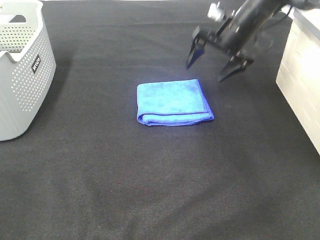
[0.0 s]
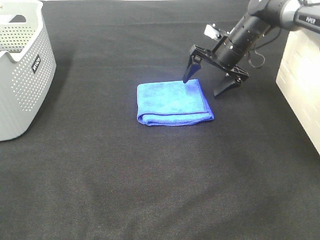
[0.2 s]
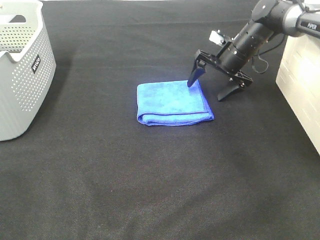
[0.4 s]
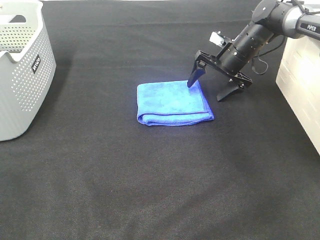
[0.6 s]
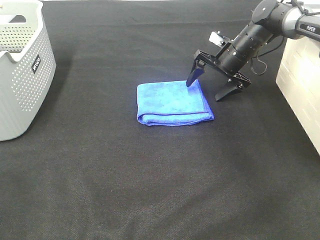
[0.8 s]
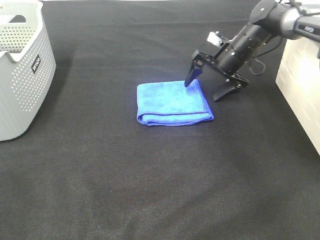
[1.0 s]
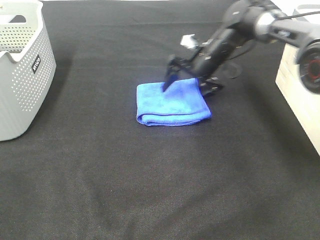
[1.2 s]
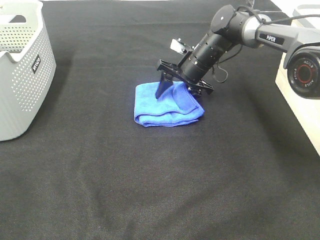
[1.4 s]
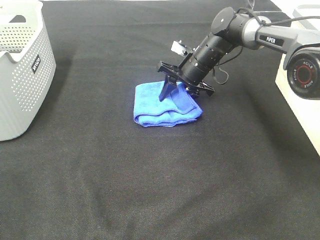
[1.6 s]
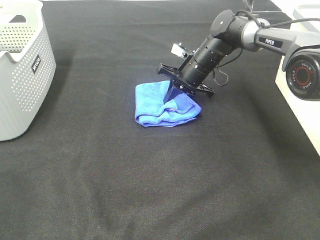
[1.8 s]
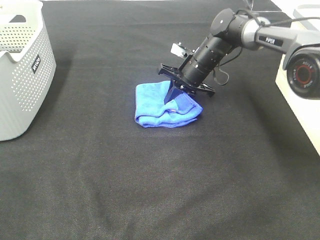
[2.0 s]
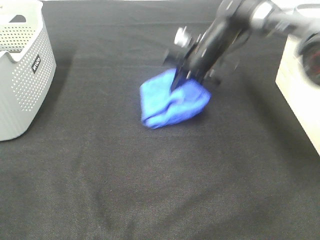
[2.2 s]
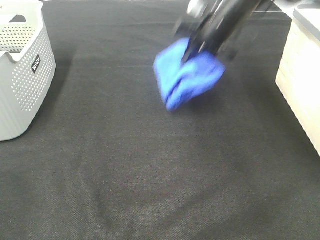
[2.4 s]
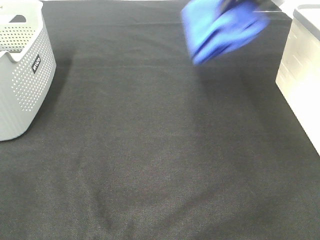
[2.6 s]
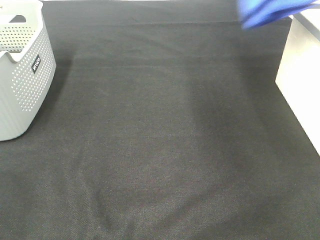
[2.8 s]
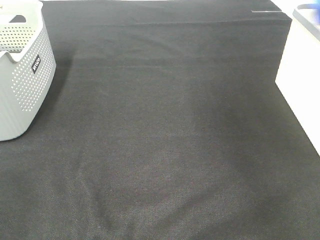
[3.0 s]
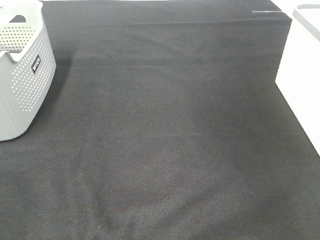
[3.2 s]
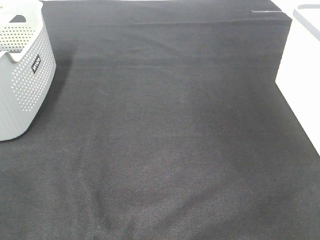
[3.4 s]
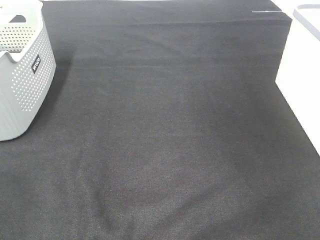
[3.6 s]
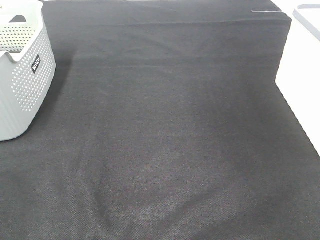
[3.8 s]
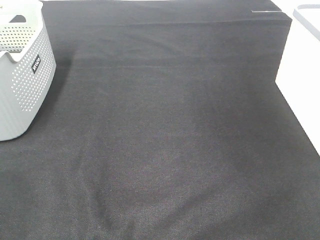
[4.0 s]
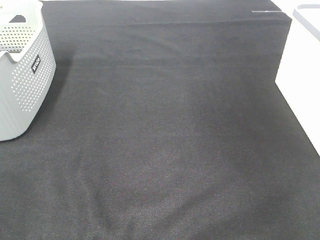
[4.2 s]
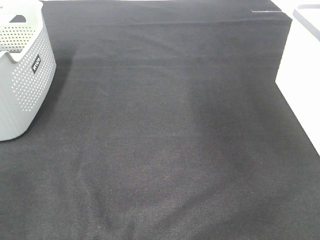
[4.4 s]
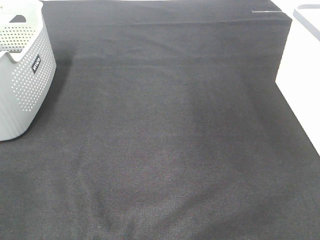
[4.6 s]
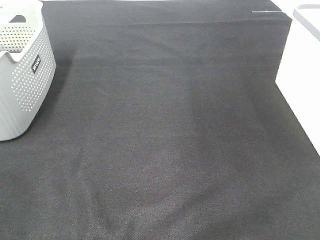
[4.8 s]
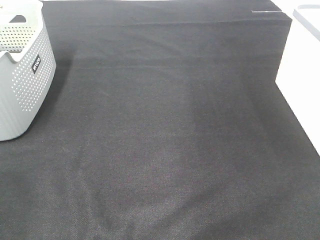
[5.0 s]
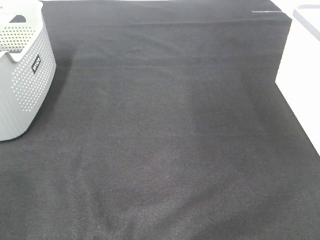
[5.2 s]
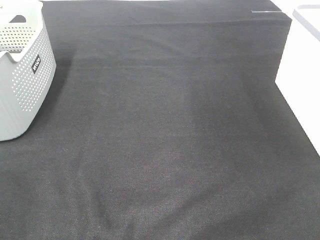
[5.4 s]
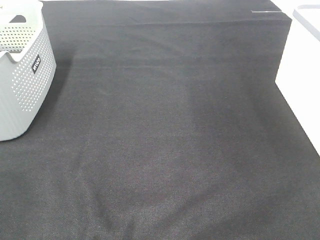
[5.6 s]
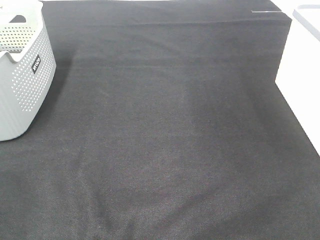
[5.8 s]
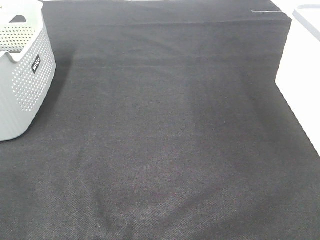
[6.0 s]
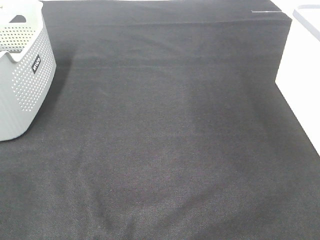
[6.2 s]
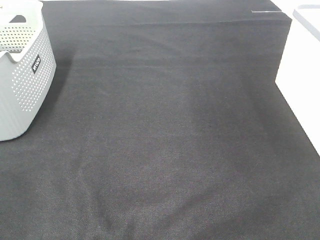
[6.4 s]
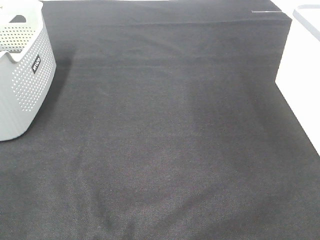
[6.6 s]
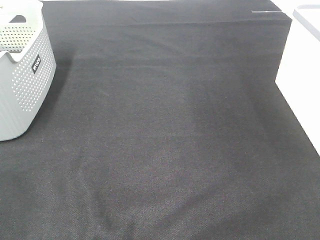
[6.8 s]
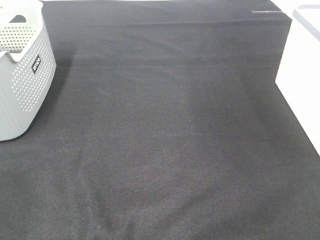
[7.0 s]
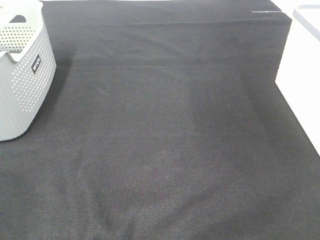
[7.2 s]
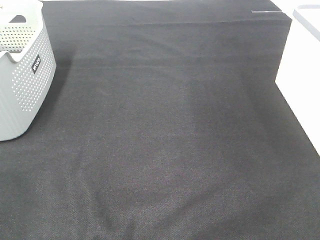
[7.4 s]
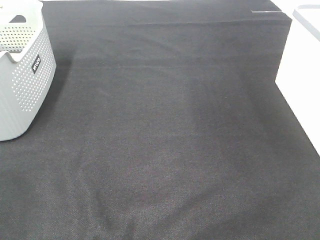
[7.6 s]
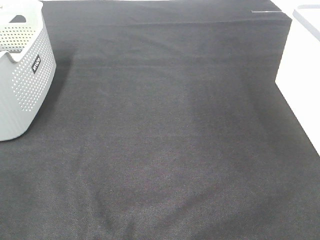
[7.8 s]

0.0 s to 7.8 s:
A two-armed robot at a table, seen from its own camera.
Step, 2.0 to 4.0 s: Right hand: place the blue towel in right basket.
0.0 to 1.6 s: The right gripper is displaced downward and to the left by approximately 10 cm, and closes.
1.6 to 3.2 s: The right gripper moves to the right and upward, roughly 40 cm.
6.2 to 7.8 s: Both grippers stay about where they are.

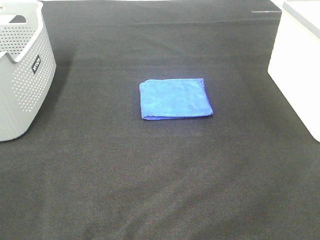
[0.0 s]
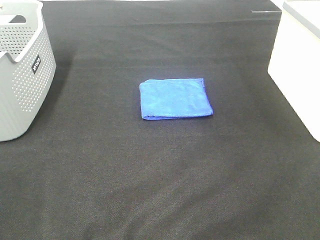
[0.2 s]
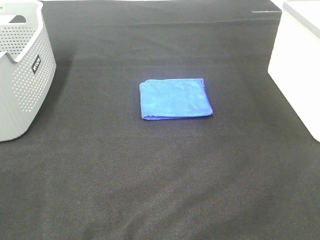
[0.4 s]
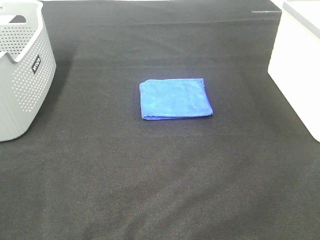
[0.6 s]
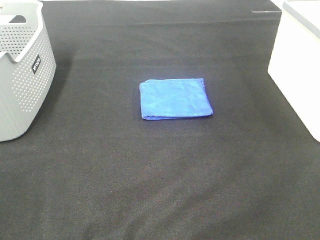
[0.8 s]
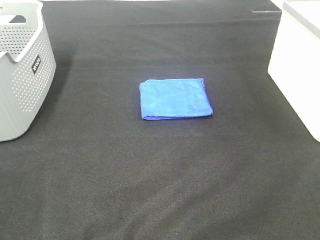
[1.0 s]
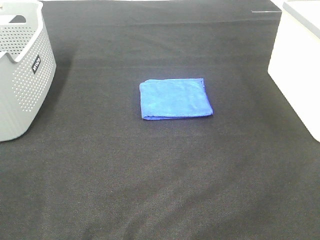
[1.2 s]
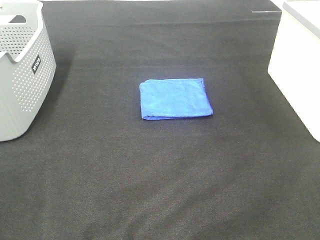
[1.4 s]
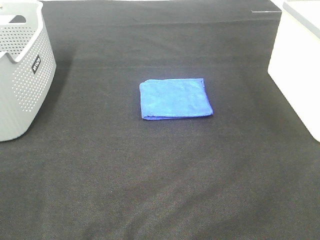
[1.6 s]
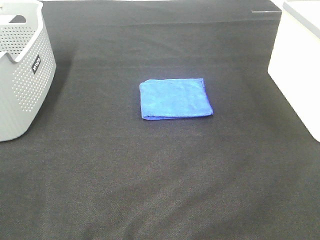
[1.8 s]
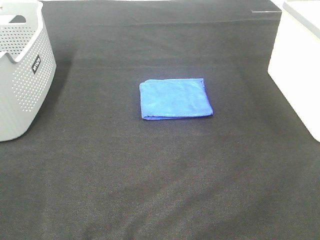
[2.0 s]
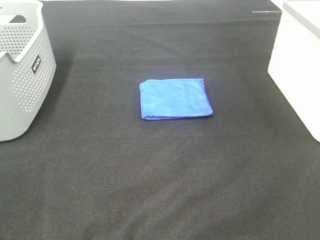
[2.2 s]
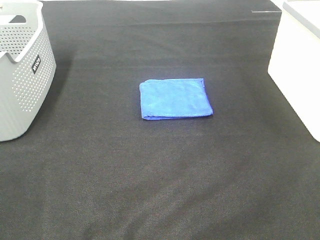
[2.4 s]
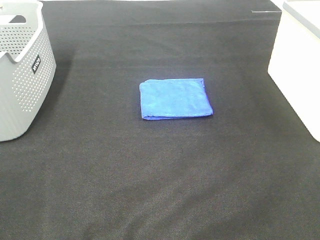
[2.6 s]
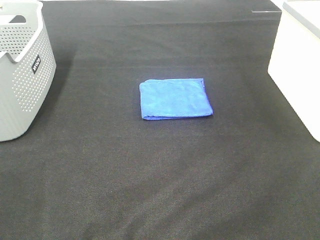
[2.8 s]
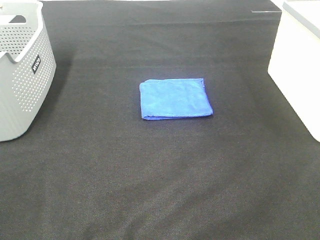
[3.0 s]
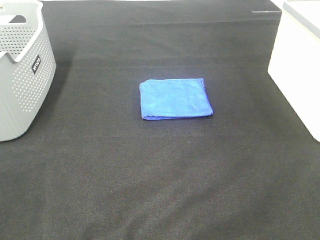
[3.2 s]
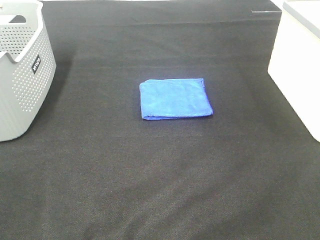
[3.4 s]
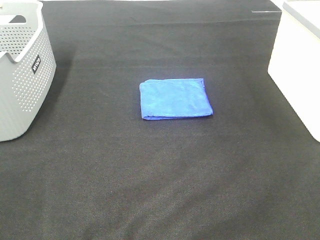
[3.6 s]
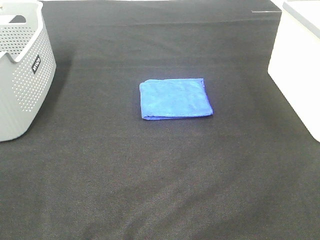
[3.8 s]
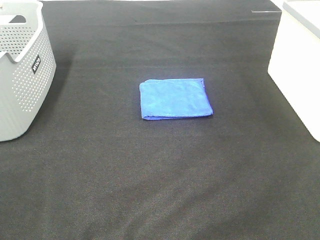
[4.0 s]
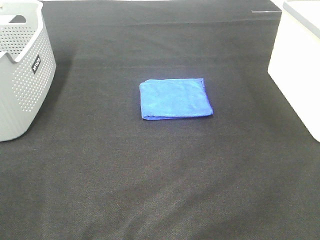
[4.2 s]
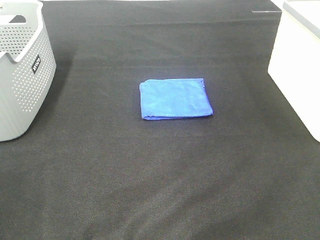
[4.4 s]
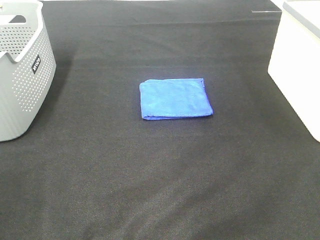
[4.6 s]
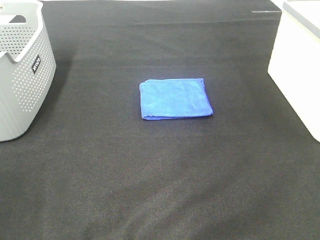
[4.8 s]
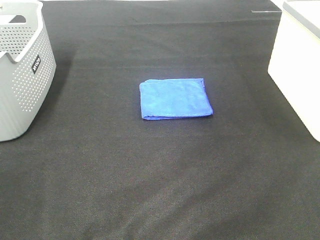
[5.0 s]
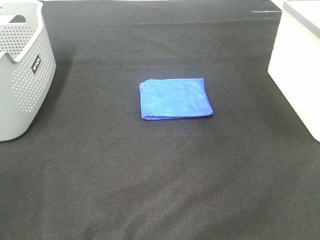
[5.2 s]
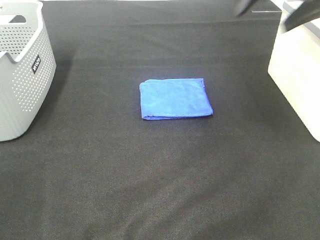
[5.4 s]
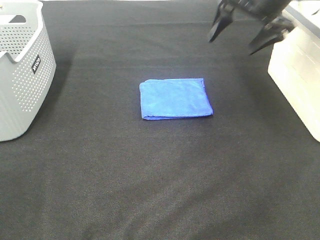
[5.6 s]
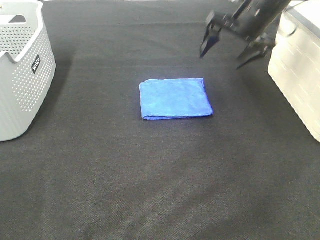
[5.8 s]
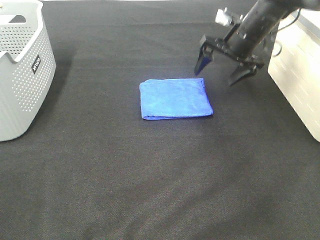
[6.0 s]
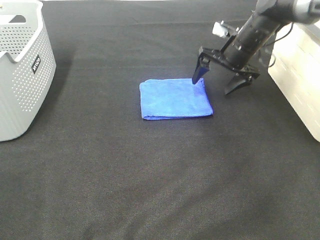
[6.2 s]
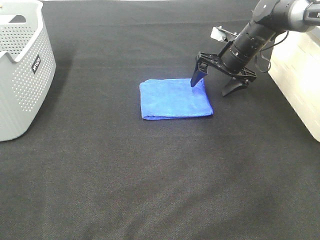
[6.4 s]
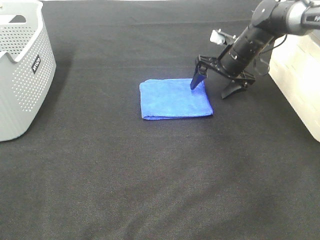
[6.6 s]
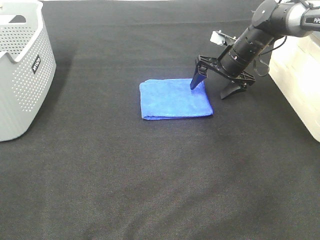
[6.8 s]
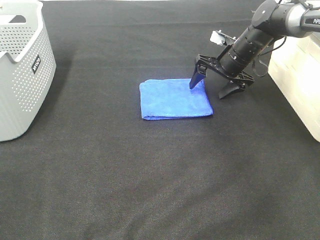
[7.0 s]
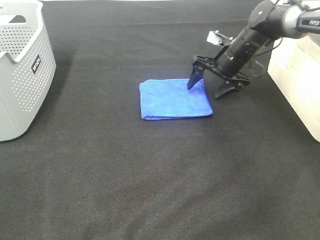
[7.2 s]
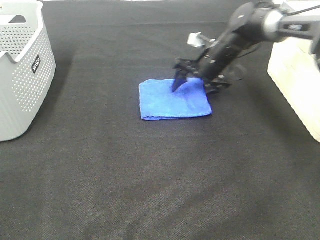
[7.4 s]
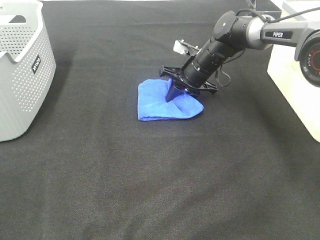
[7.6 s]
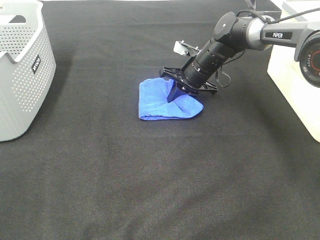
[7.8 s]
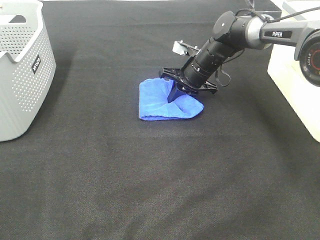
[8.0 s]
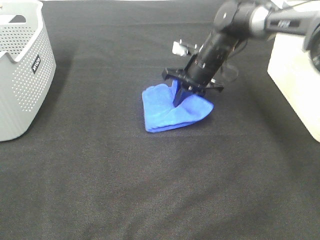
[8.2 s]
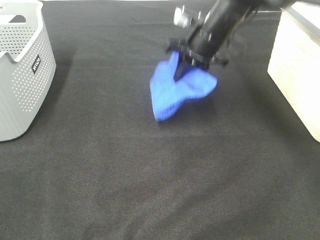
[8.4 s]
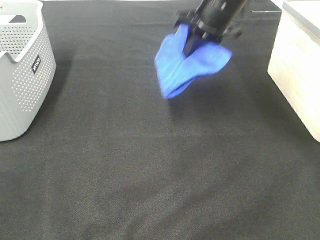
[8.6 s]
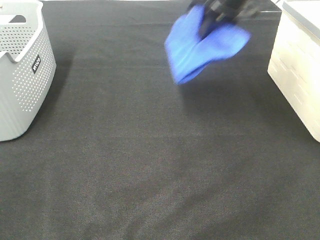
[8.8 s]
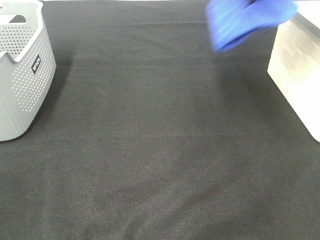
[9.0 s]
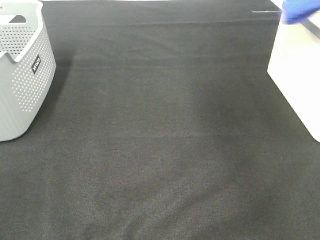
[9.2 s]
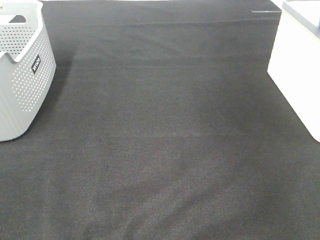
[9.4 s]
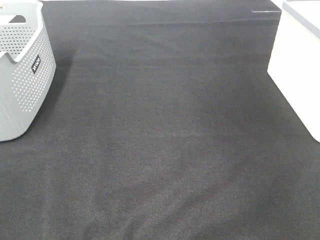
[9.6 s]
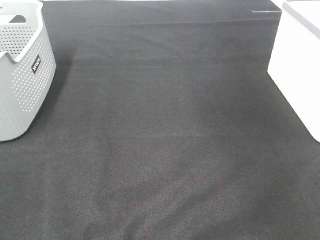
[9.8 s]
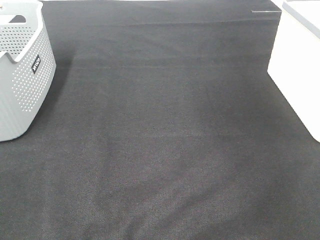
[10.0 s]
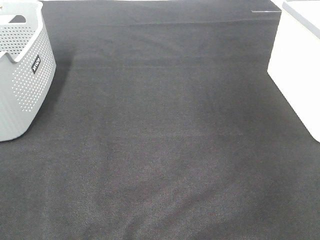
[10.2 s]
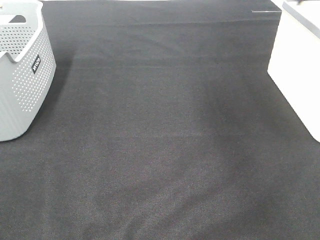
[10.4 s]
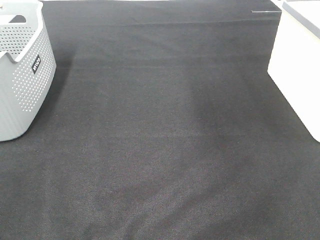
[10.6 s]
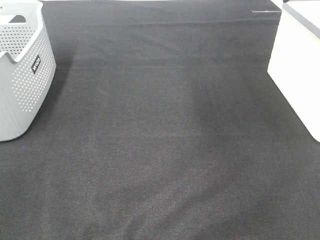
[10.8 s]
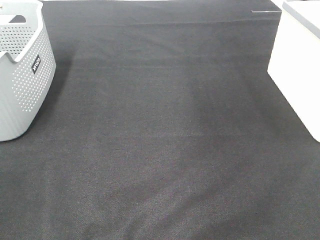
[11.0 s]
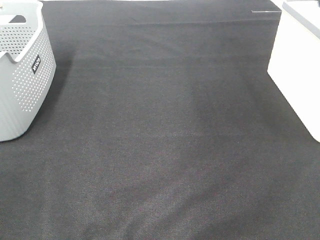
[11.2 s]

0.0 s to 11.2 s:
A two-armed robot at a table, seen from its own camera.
Step, 0.0 to 7.6 s: Right hand: grab the folded blue towel.
Step, 7.8 to 9.8 s: Right hand: place the blue towel in right basket.
0.0 to 3.2 s: Neither gripper changes place.
4.8 to 6.4 s: The right gripper heads downward and forward, covering roughly 40 cm.
6.4 to 8.0 s: The right gripper is displaced to the left by roughly 10 cm, and closes.
8.0 to 9.6 s: The right gripper goes about 40 cm to the right and upward.

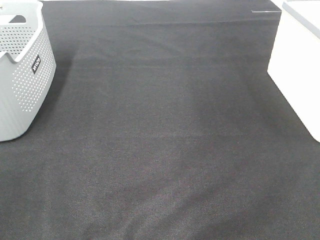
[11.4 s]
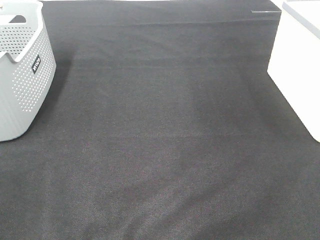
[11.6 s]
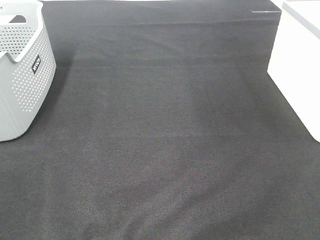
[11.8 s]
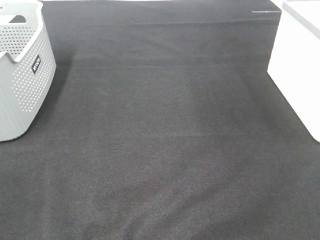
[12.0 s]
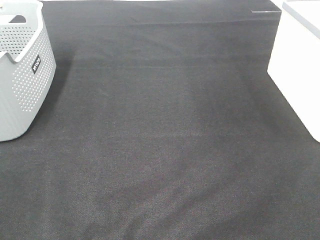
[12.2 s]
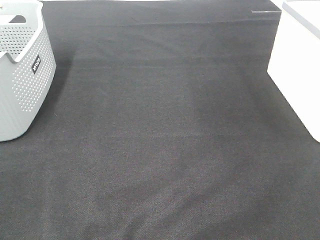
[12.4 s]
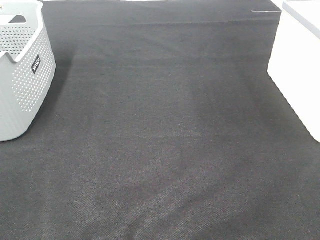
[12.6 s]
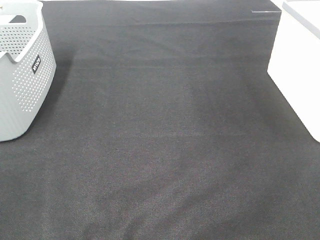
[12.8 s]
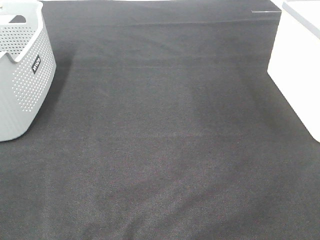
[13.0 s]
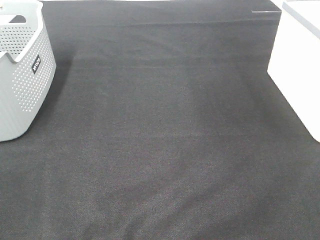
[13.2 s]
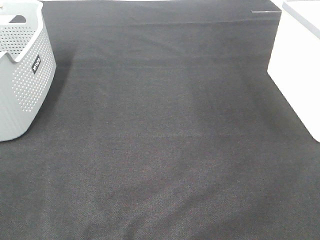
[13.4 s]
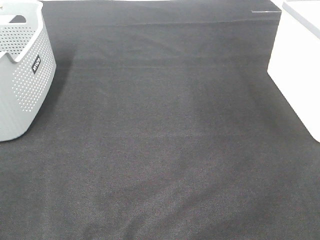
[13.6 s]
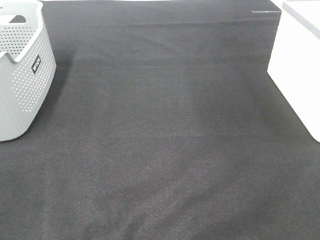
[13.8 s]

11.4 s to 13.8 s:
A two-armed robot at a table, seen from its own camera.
12.6 to 13.8 s: Both grippers stay about where they are.

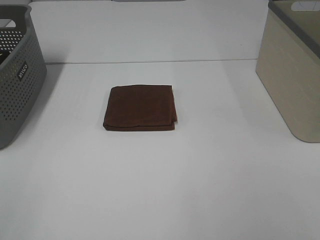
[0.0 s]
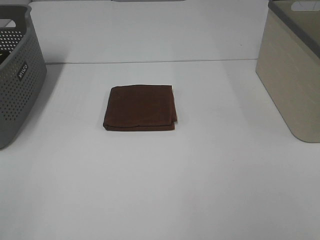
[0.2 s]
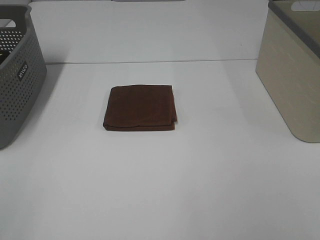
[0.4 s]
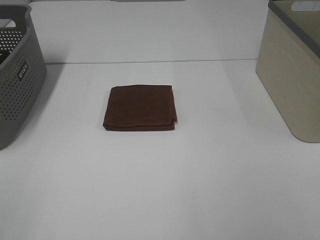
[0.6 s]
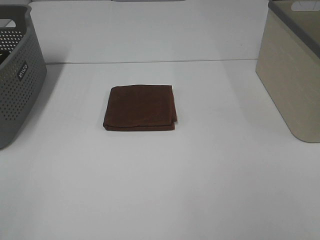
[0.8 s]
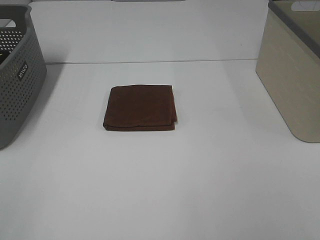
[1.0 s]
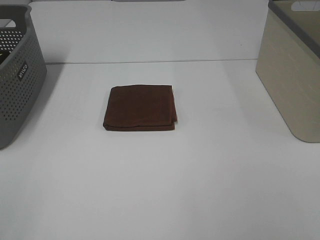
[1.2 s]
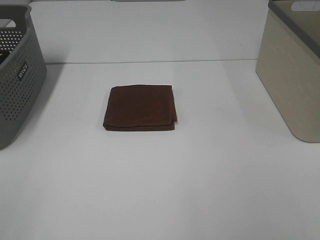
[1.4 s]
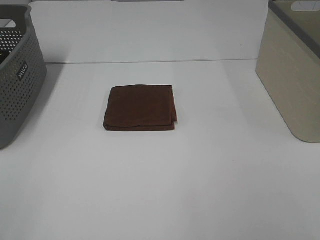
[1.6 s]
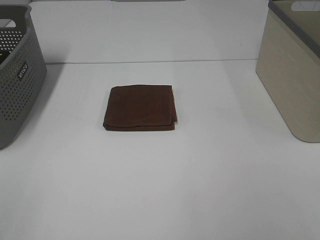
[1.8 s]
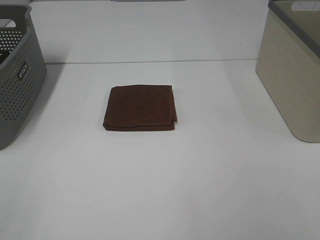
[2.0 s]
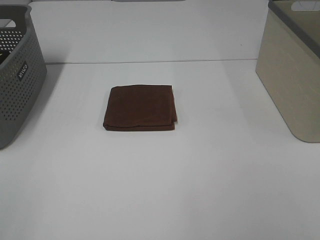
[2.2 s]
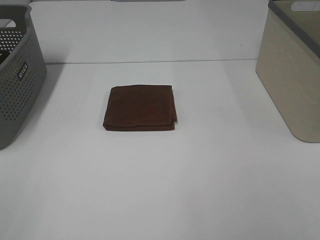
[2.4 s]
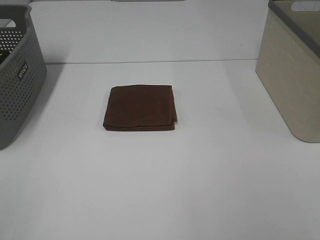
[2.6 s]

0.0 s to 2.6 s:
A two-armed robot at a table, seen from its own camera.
0.0 to 2.6 s: Both grippers stay put.
